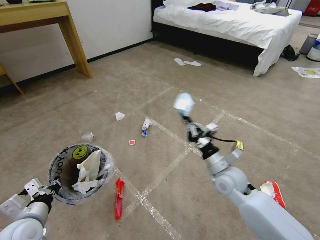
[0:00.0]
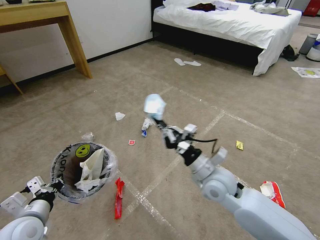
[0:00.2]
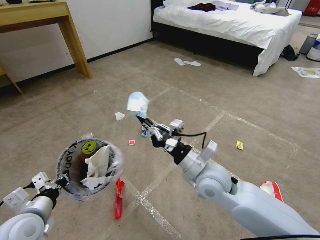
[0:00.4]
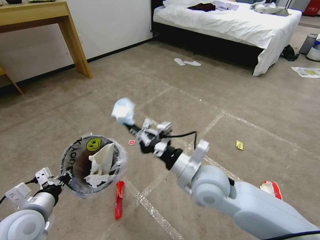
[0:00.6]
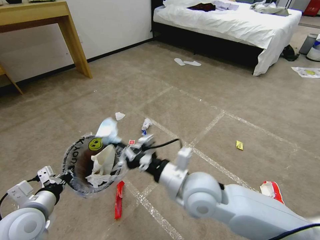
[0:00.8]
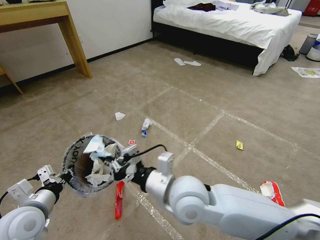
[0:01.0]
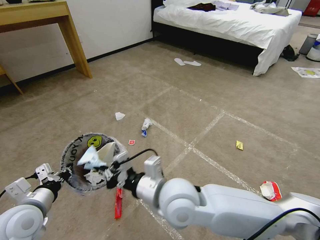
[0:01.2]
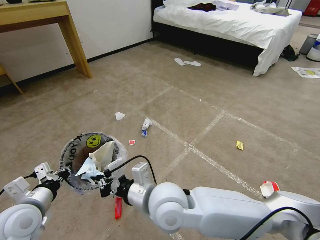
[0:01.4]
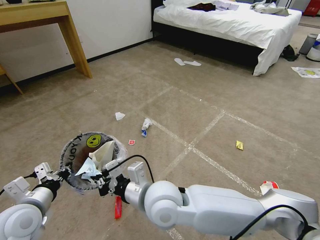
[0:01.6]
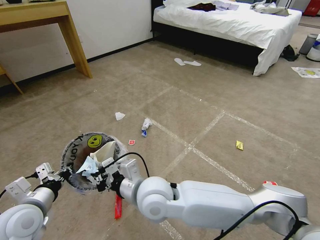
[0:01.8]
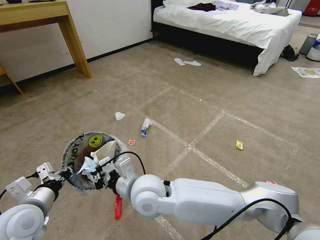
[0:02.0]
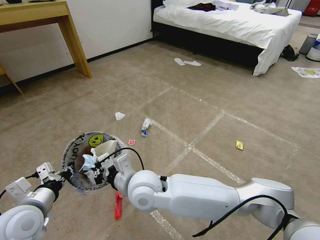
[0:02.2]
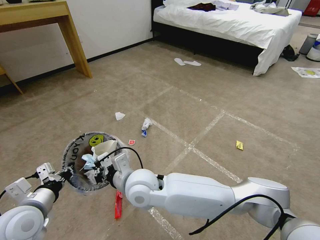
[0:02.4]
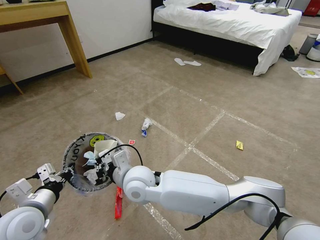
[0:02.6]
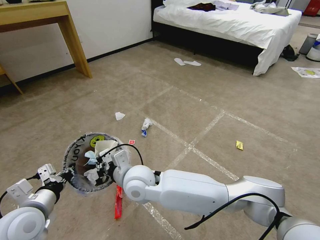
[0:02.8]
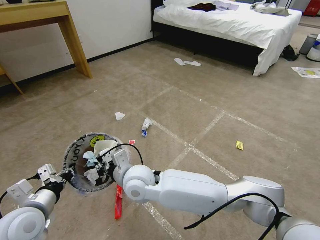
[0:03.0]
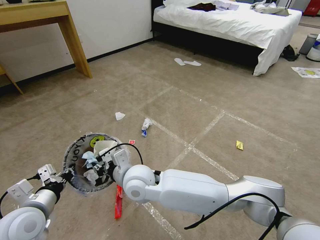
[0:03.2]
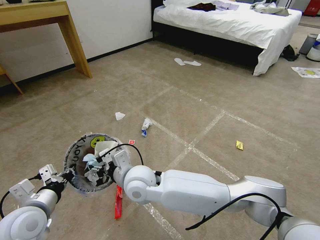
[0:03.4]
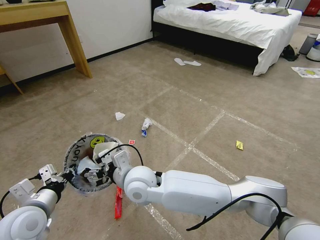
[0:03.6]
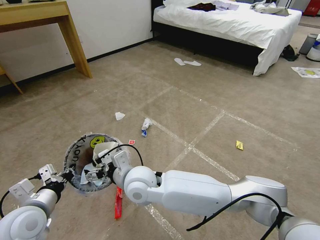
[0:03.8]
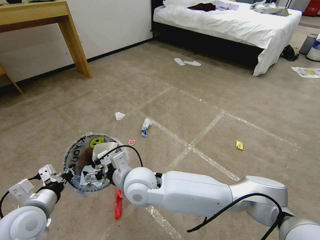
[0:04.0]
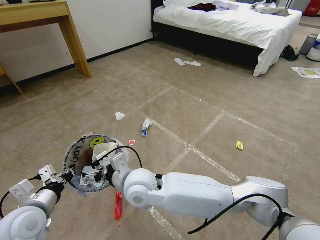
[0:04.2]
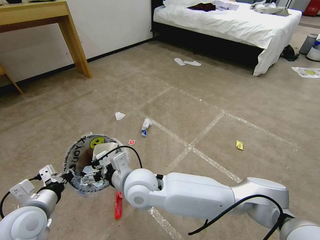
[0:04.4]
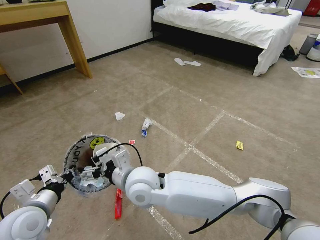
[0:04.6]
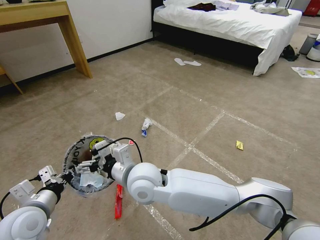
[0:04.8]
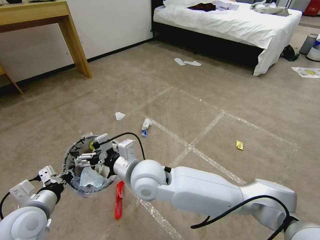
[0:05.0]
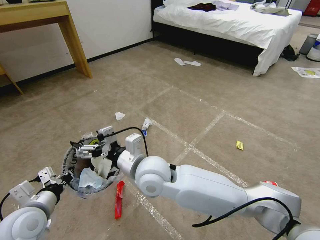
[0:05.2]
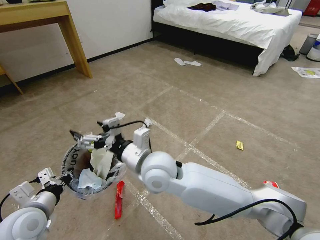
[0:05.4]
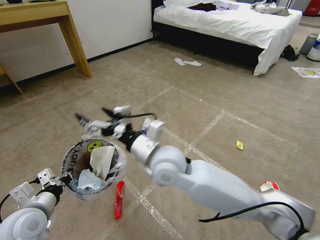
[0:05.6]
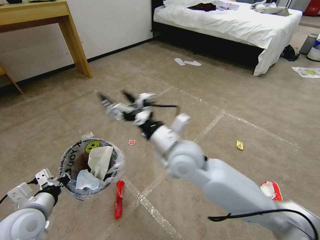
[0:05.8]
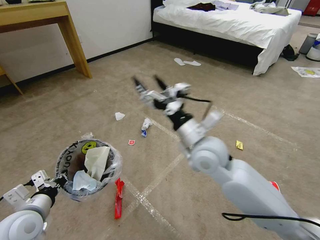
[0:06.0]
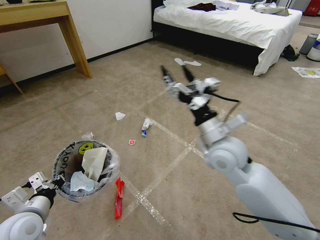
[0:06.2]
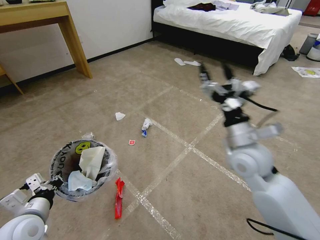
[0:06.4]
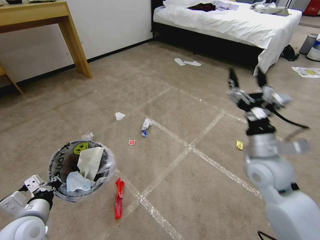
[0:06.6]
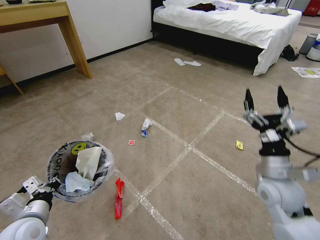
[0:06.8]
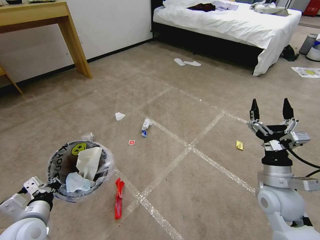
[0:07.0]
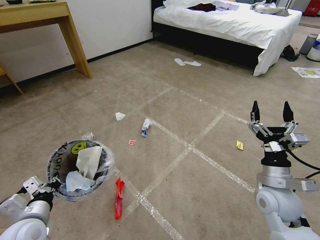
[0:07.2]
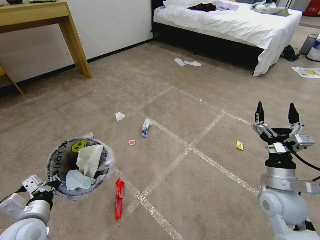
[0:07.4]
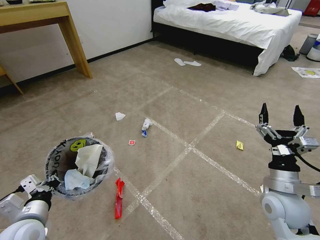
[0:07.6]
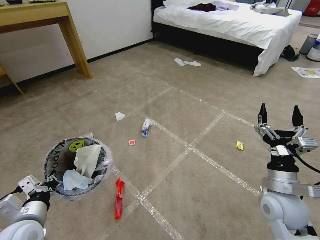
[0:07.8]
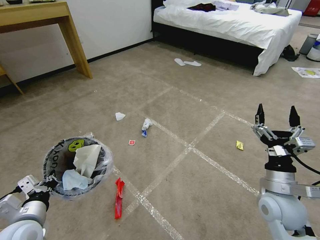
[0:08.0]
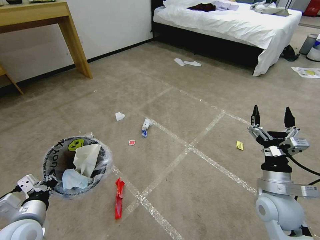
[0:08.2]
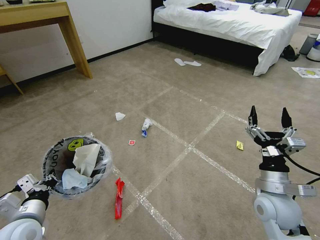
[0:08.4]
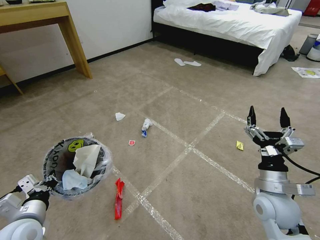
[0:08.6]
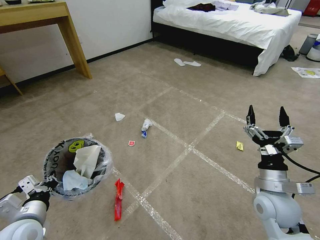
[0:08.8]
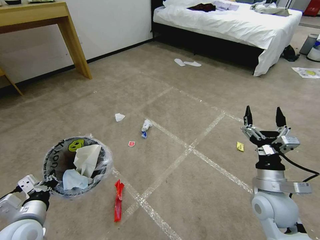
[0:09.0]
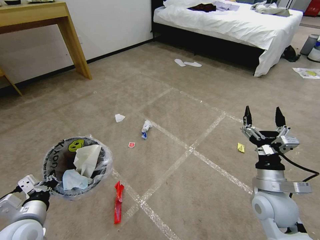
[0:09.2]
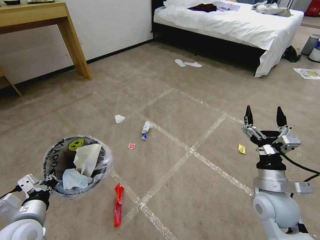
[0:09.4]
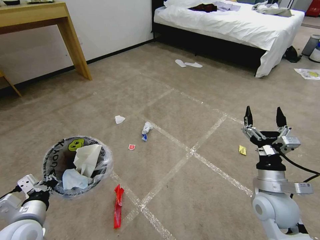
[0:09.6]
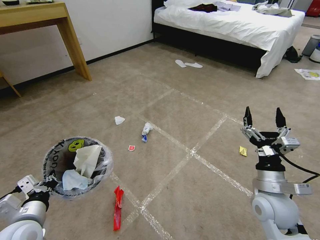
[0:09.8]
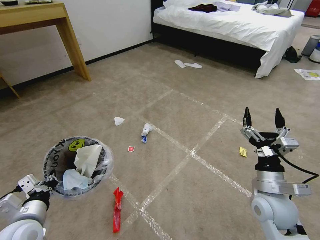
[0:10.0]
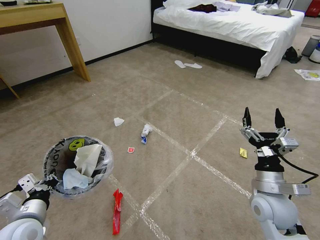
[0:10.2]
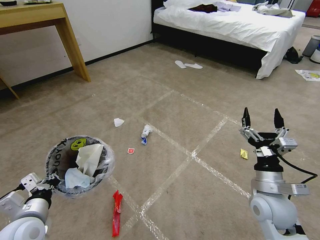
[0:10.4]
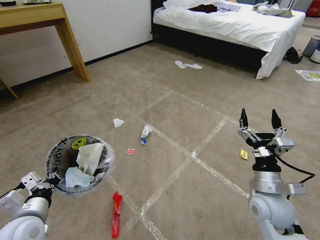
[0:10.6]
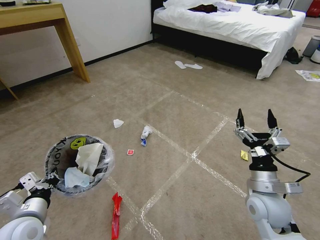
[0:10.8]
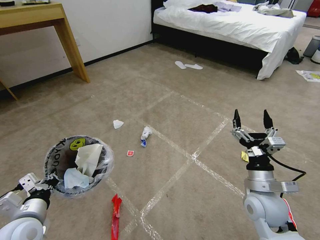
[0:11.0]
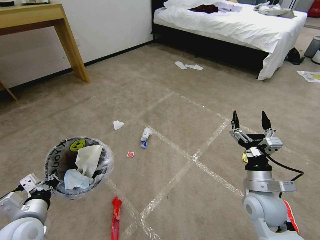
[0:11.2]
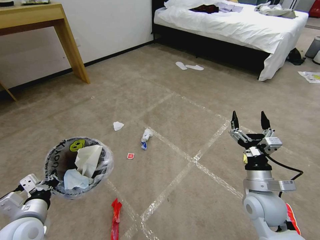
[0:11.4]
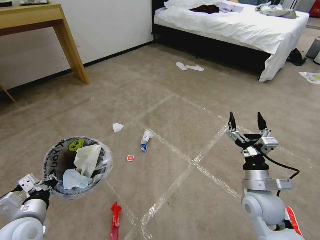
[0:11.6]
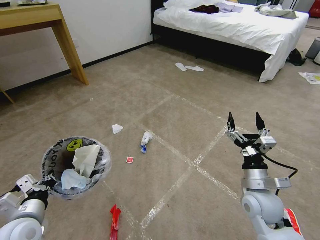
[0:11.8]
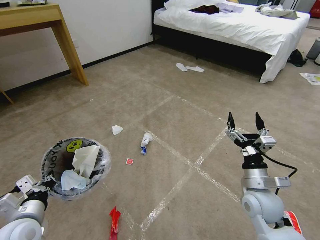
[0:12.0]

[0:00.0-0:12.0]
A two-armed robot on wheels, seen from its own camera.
Task of the whole recording: Pick up the trash bin and place the garbage on the floor into it.
0:00.0 to 0:01.6: The left gripper changes place by approximately 5 cm. The right gripper heads to the left, covering some 20 cm.
0:01.6 to 0:03.0: The right gripper goes approximately 10 cm forward and to the left.
0:03.0 to 0:04.4: The right gripper opens up.
0:04.4 to 0:06.0: The right gripper heads to the right and upward, covering about 20 cm.
0:06.0 to 0:07.6: The right gripper shifts roughly 25 cm to the right, downward and backward.
0:07.6 to 0:09.0: The grippers make only small movements.
0:09.0 to 0:10.4: Neither gripper changes place.

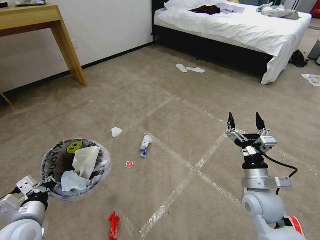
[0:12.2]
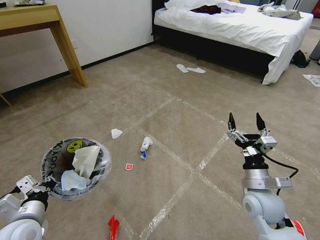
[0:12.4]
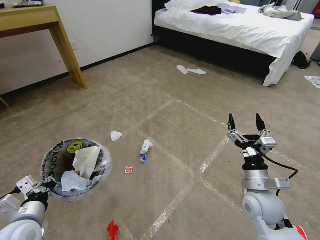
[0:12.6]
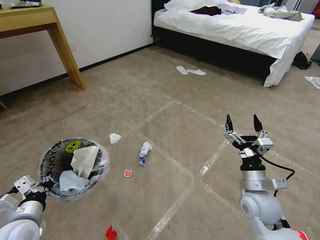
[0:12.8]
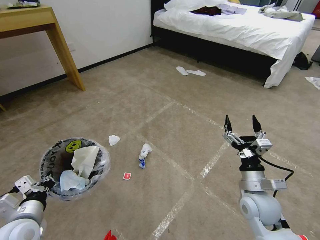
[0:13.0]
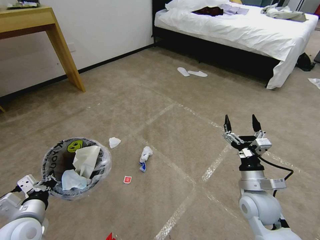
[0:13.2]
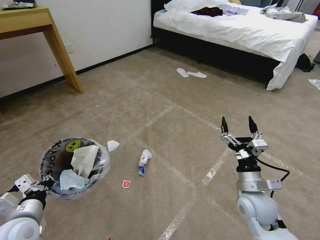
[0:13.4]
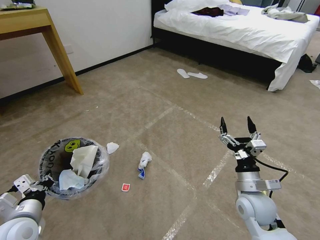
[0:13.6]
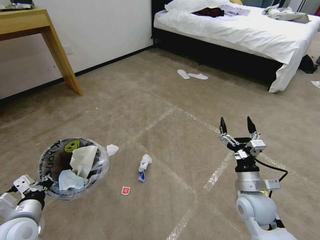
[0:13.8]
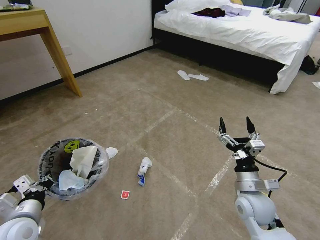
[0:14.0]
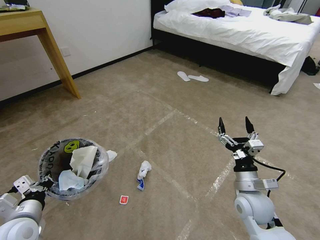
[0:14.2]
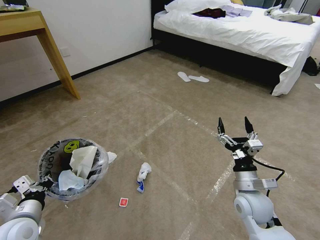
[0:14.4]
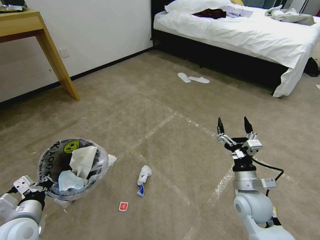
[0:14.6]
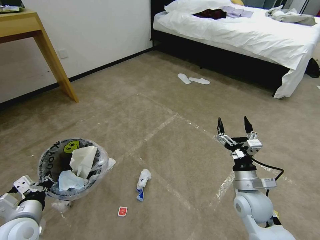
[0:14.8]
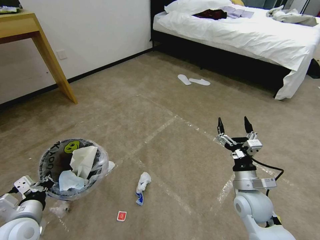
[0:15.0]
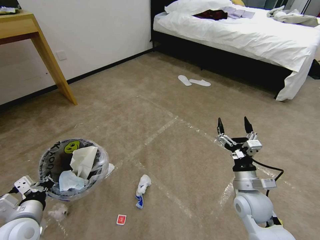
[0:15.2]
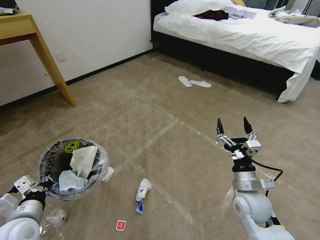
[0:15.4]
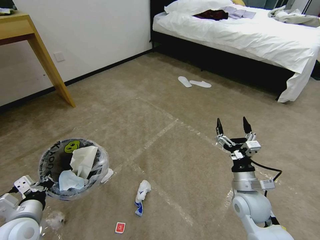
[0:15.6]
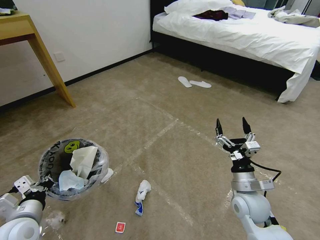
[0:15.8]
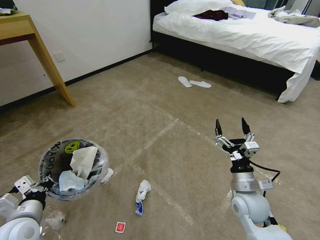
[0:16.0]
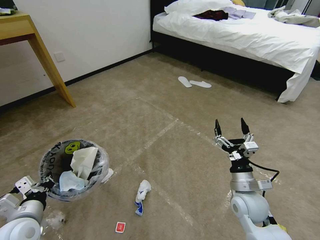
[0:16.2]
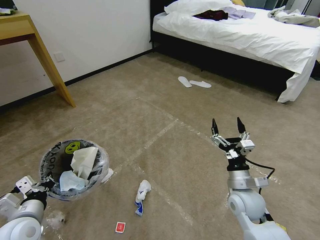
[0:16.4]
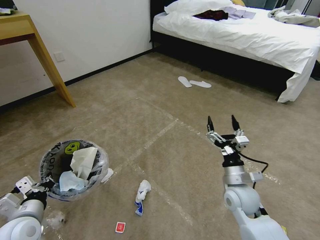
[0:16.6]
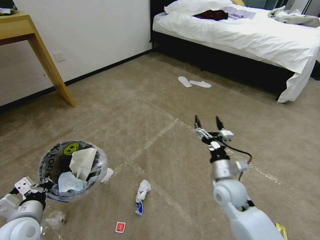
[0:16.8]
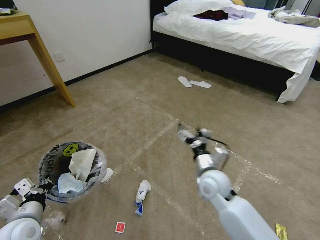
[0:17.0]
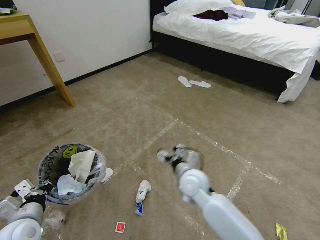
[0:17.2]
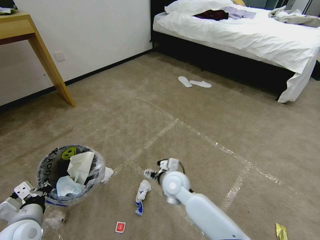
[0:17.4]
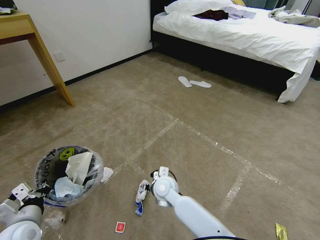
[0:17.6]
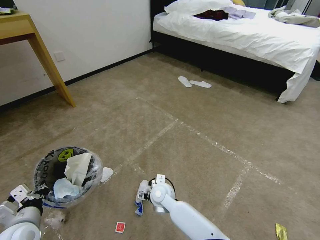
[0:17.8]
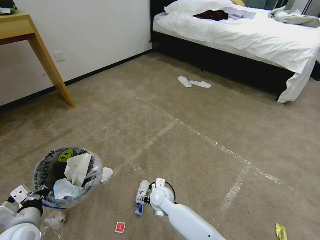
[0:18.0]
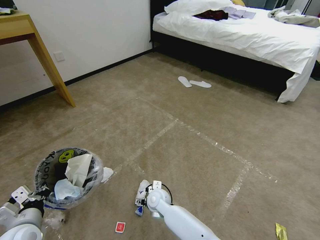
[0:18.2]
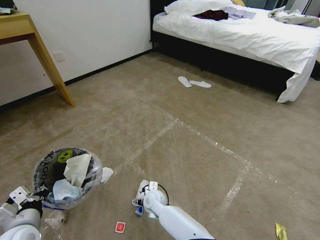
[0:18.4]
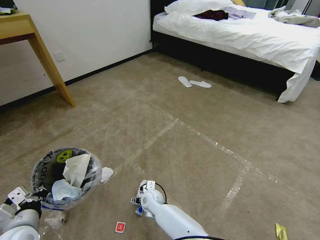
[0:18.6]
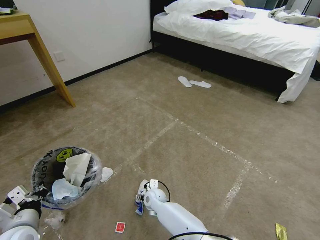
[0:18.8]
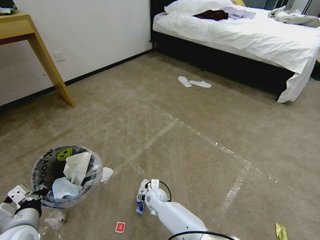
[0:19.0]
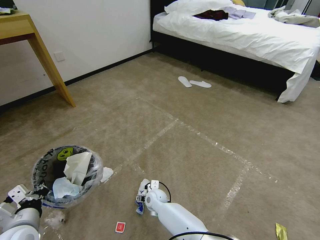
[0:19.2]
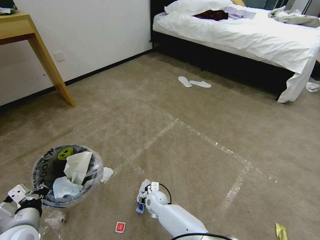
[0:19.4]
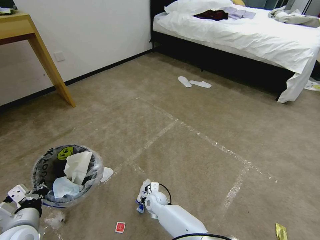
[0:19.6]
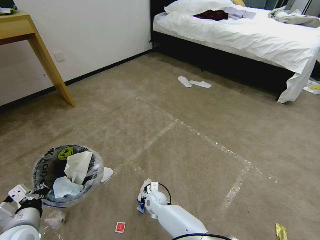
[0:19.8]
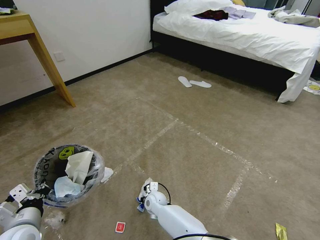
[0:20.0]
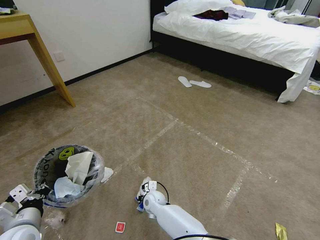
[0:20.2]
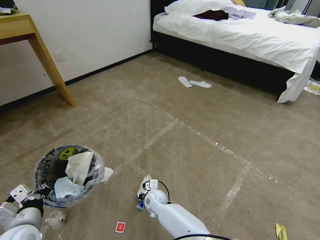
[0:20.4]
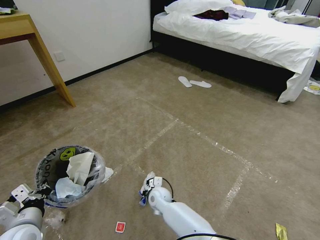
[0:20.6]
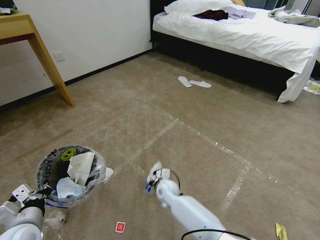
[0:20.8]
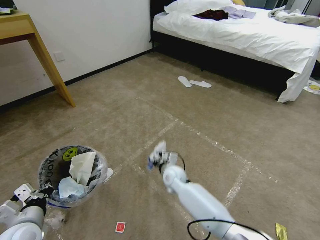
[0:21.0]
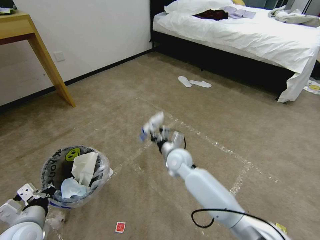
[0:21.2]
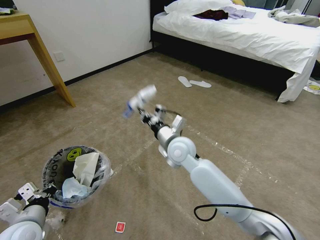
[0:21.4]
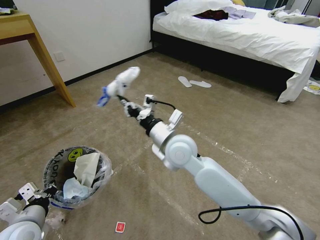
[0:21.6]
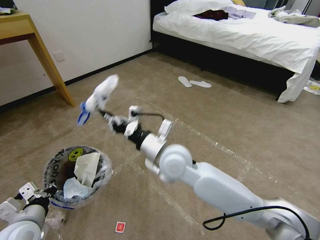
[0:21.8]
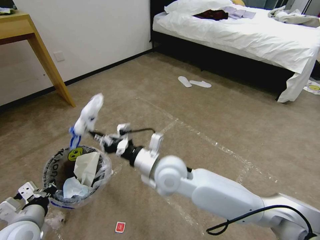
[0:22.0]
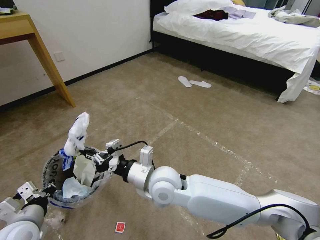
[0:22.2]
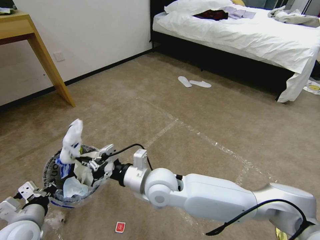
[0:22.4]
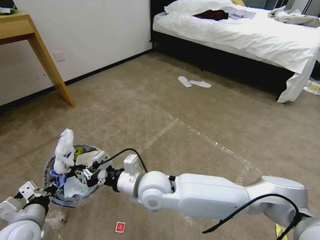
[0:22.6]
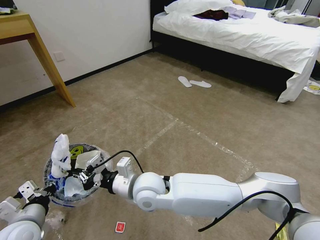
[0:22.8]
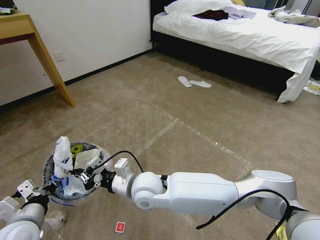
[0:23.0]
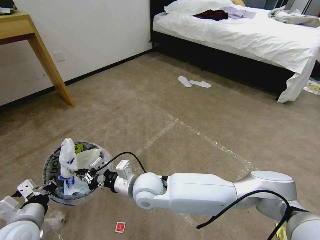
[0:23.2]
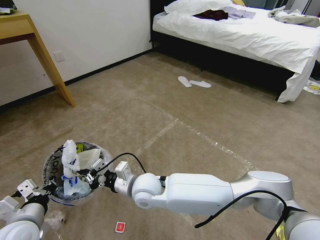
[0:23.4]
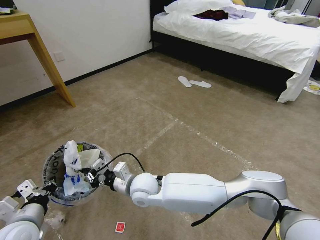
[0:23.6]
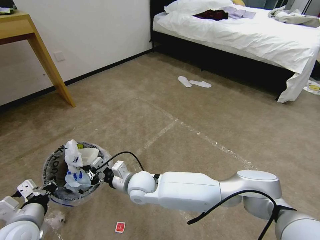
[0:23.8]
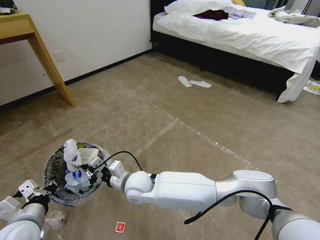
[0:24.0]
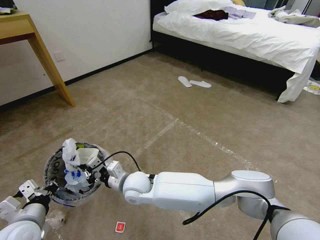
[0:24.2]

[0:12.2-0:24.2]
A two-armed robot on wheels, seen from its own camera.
Task of the whole recording: Pick up the trash bin and place the garbage on the floor into it.
0:15.2 to 0:16.6: There are only small adjustments of the grippers.
0:16.6 to 0:18.2: The right gripper travels to the left and downward by some 30 cm.
0:18.2 to 0:19.8: The right gripper heads downward, covering approximately 5 cm, and closes its fingers.
0:19.8 to 0:21.2: The right gripper heads upward, to the right and forward, covering about 20 cm, and closes up.
0:21.2 to 0:22.6: The right gripper goes some 20 cm backward, upward and to the left.
0:22.6 to 0:24.2: The right gripper travels downward and to the left by roughly 10 cm.
